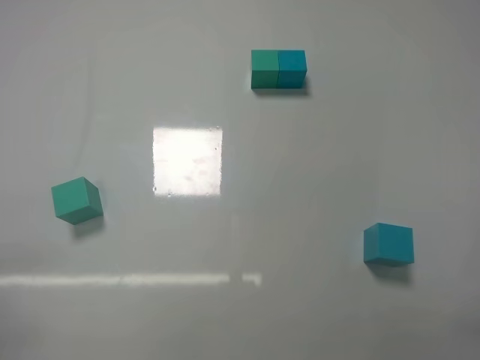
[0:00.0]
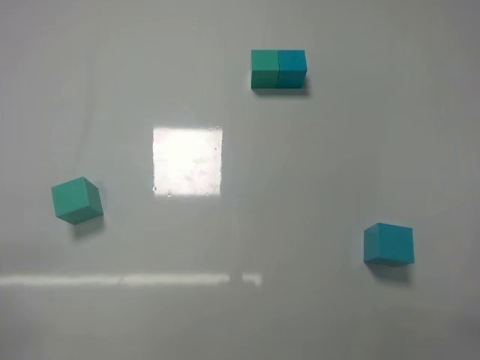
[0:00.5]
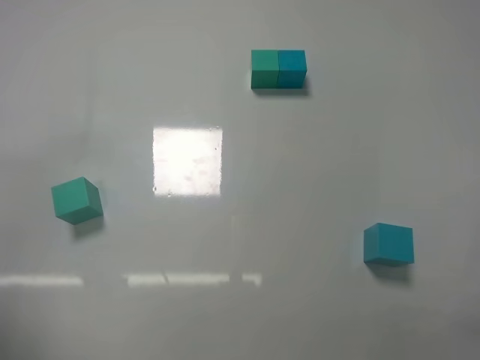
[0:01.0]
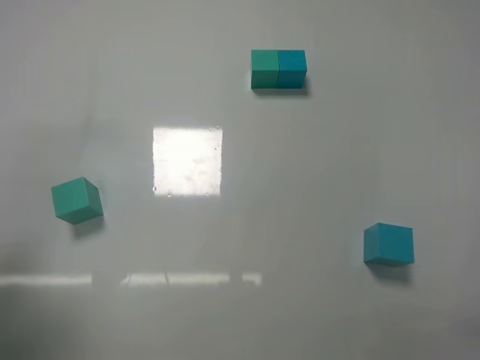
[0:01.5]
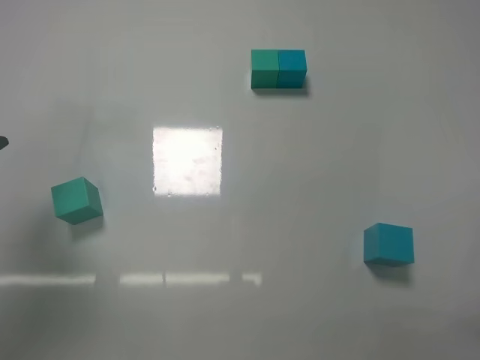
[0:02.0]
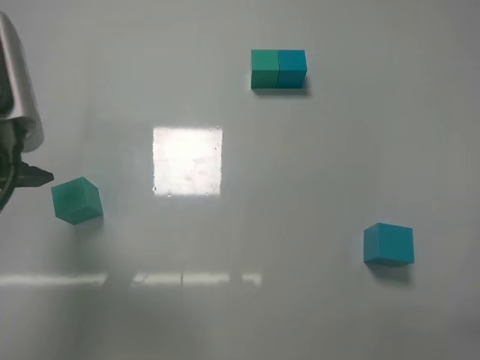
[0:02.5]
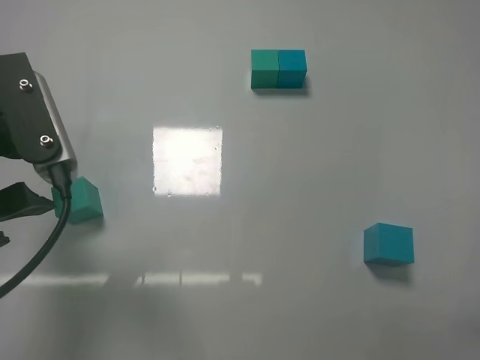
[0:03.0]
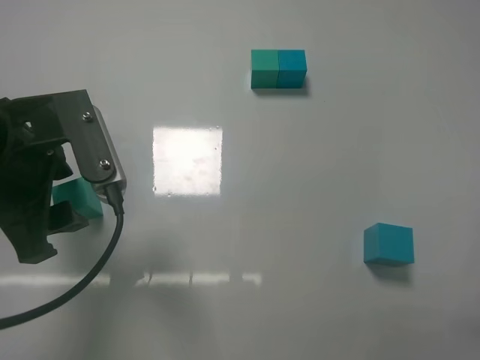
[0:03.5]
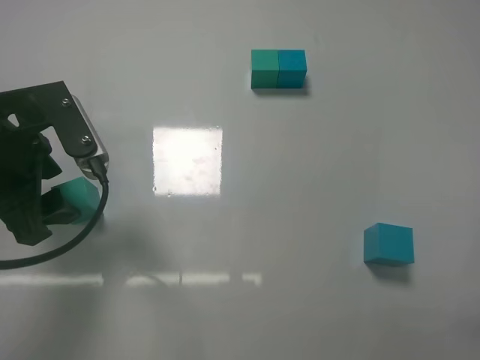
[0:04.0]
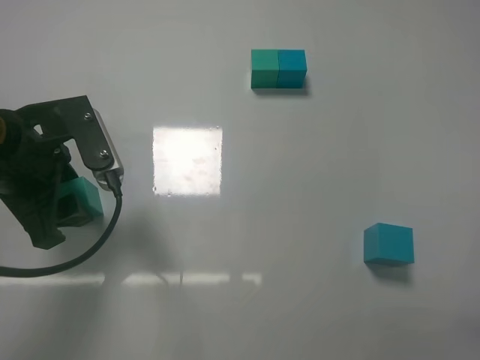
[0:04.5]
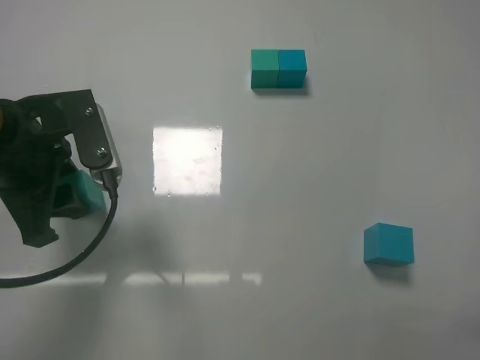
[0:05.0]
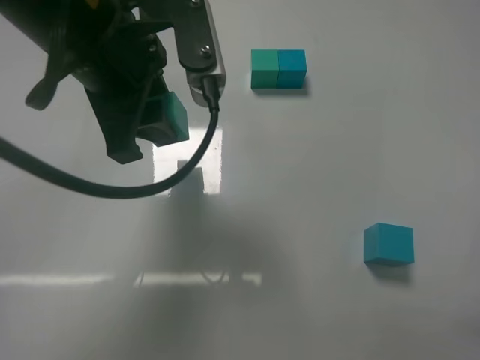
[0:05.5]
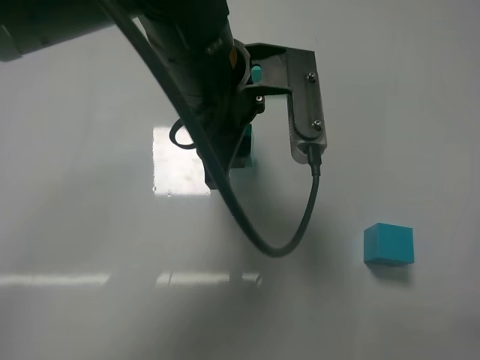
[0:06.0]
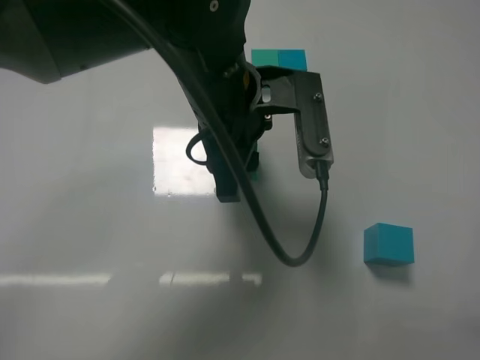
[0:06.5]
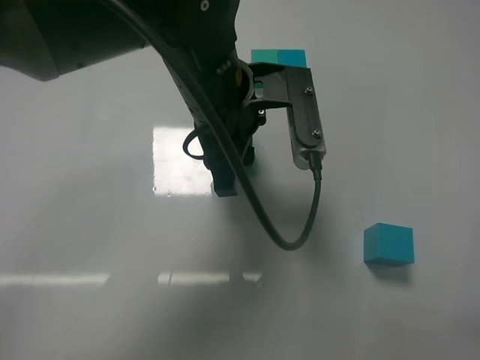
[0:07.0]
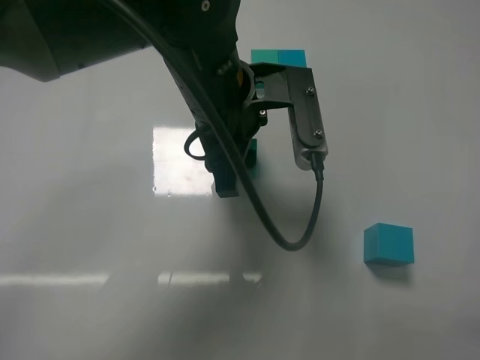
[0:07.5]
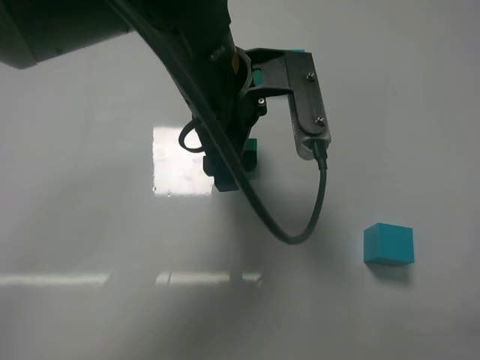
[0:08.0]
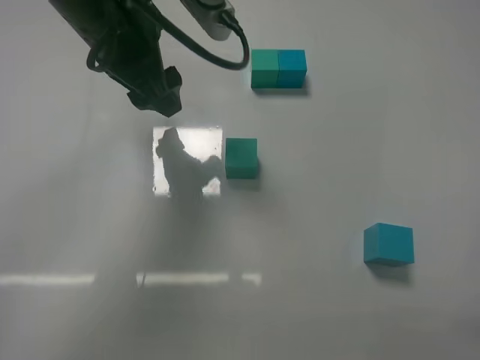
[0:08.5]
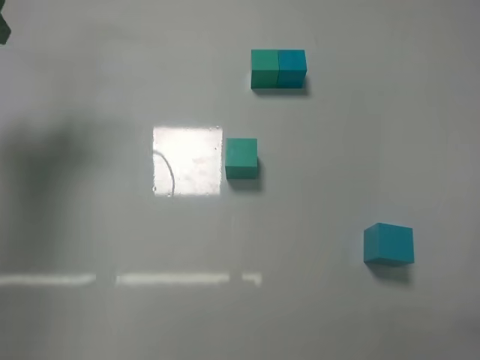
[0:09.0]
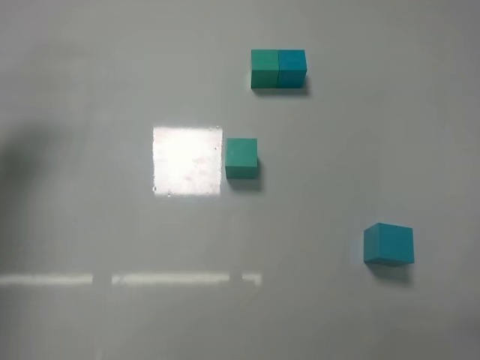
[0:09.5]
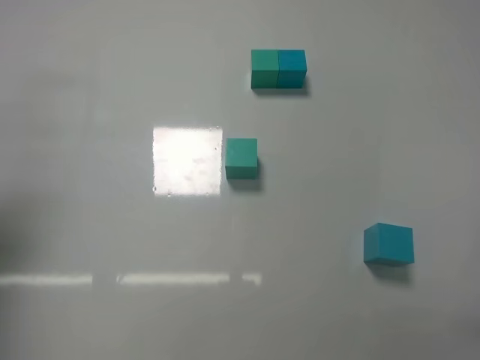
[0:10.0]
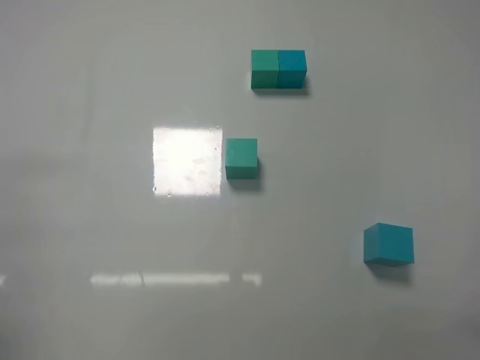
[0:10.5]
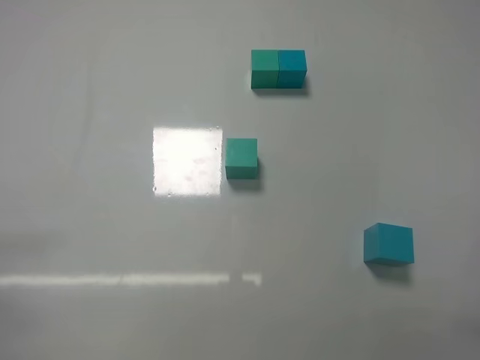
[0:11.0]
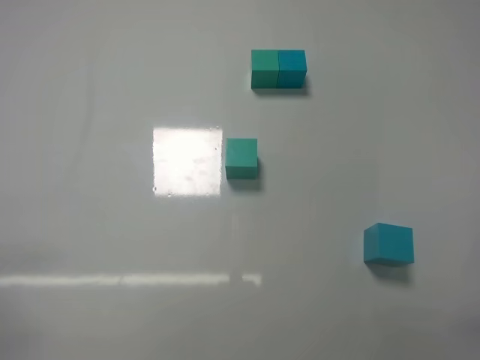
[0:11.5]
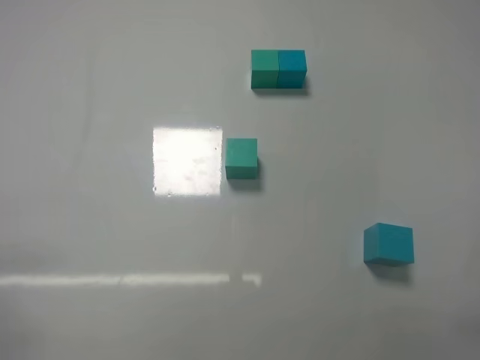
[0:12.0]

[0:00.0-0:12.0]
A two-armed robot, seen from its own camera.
Task of the whole recording: According to the building block template in front, assemble the scattered blocks together.
Step, 0:00.0 to 0:04.5: Grasp the green block with left gripper.
Step, 0:05.0 to 0:08.0: Adjust the position of the cube with the left gripper.
0:00.0 to 0:02.0: The left gripper shifts roughly 25 cm forward and upward, and opens up.
0:02.0 to 0:04.0: The left gripper heads downward, to the right and forward, covering about 10 cm.
0:04.0 to 0:06.0: The left gripper moves to the right, roughly 20 cm, and closes its fingers.
0:06.0 to 0:08.0: The left gripper opens up.
0:08.0 to 0:10.0: The left gripper is displaced to the left by approximately 35 cm.
0:10.0 to 0:12.0: The left gripper is displaced backward and downward by about 25 cm.

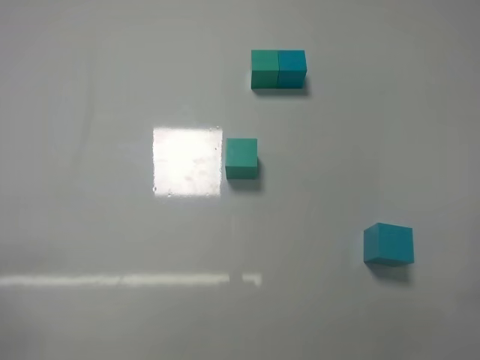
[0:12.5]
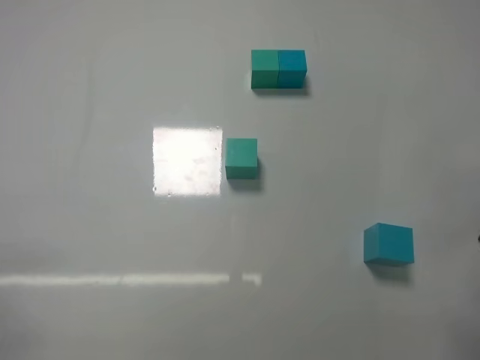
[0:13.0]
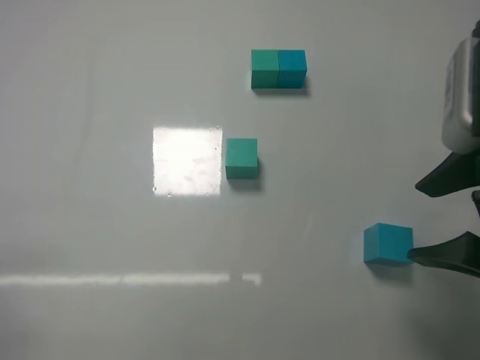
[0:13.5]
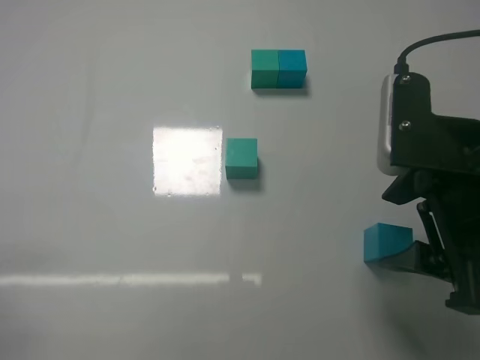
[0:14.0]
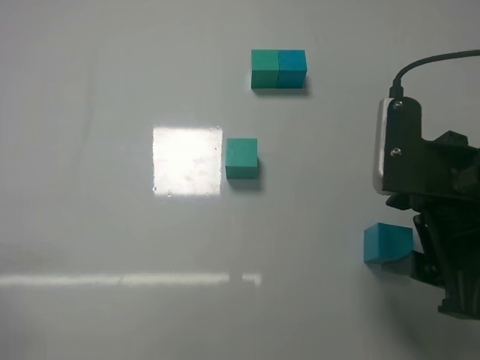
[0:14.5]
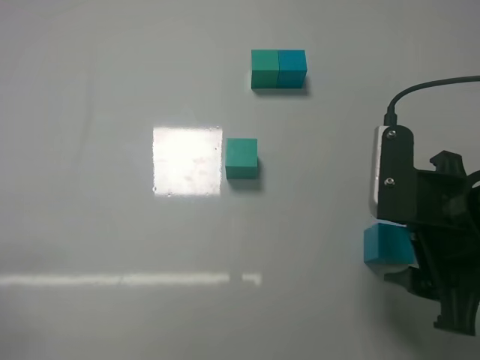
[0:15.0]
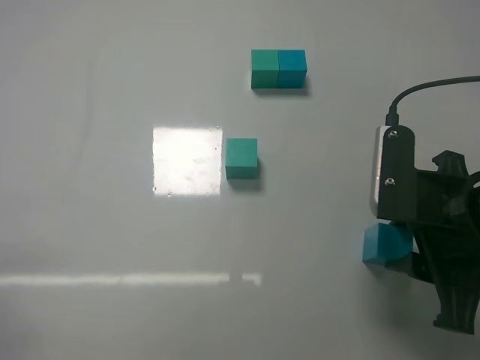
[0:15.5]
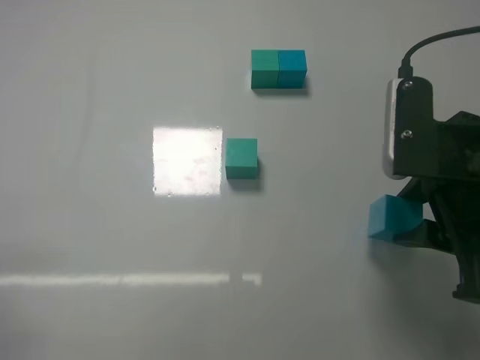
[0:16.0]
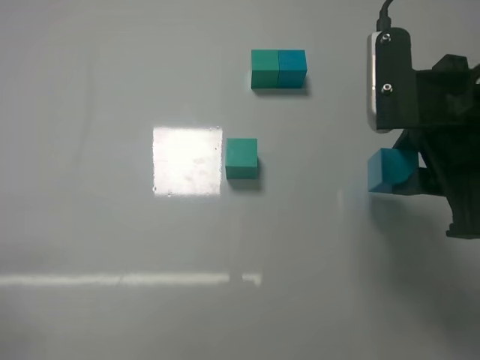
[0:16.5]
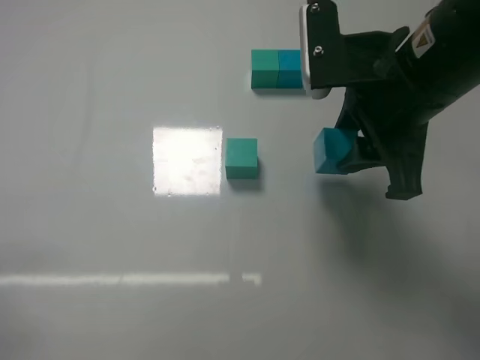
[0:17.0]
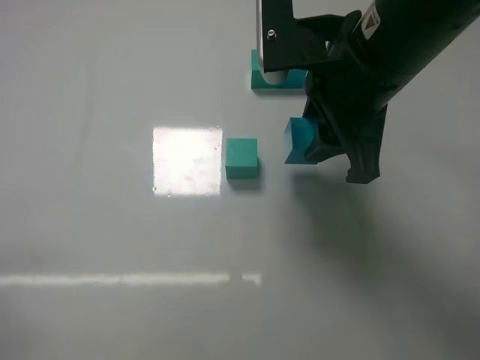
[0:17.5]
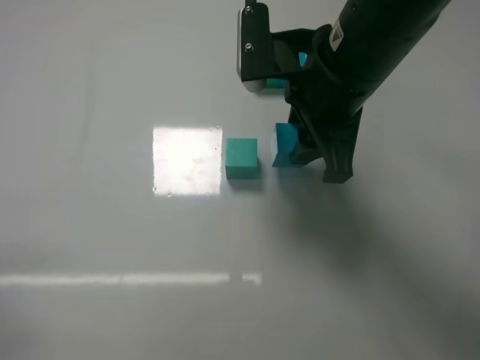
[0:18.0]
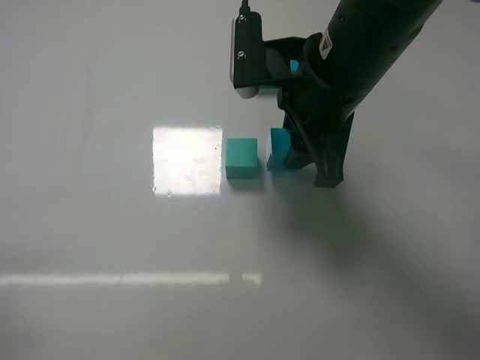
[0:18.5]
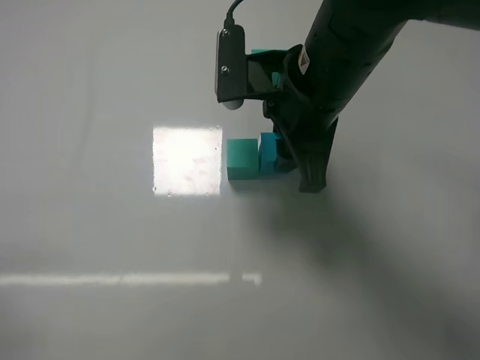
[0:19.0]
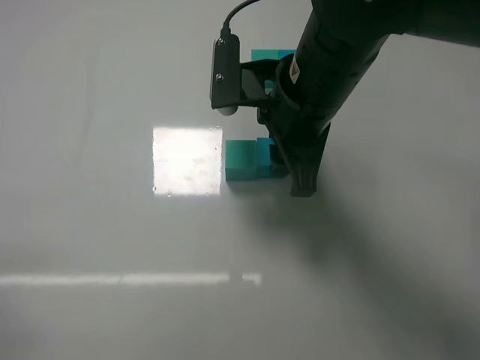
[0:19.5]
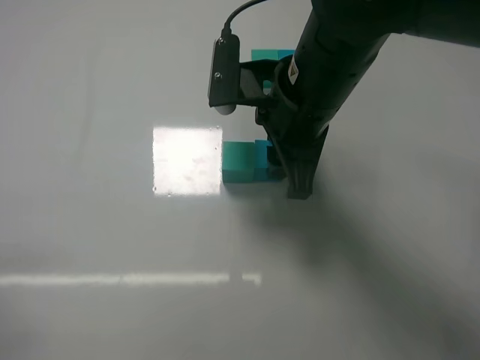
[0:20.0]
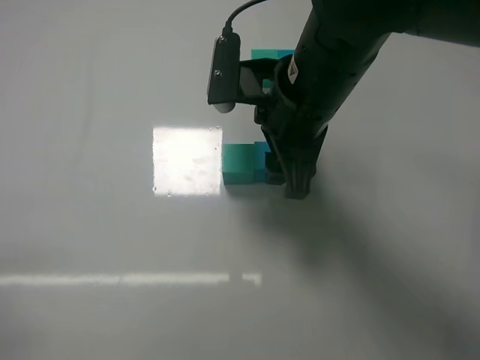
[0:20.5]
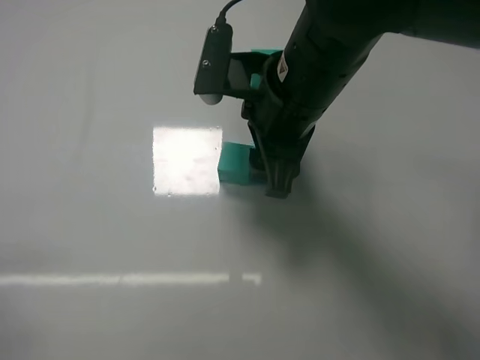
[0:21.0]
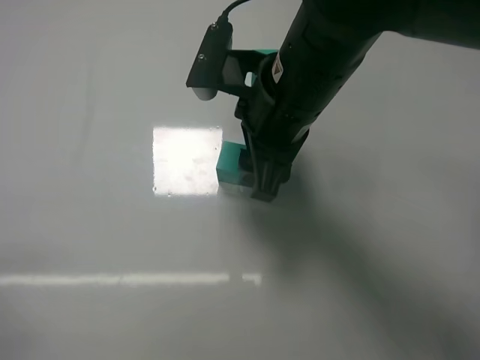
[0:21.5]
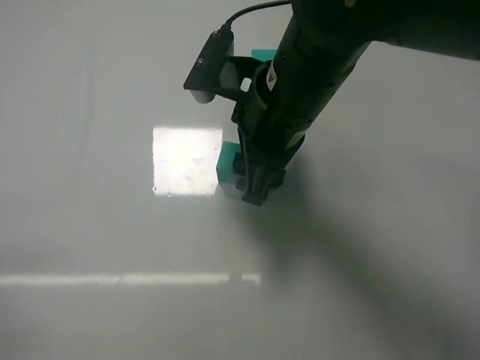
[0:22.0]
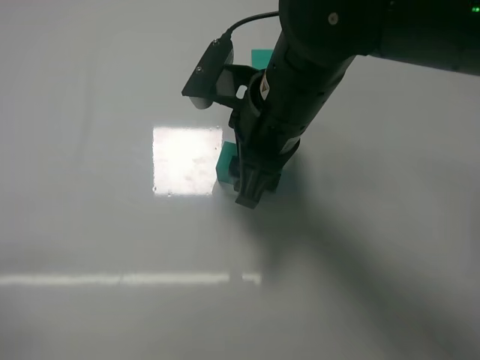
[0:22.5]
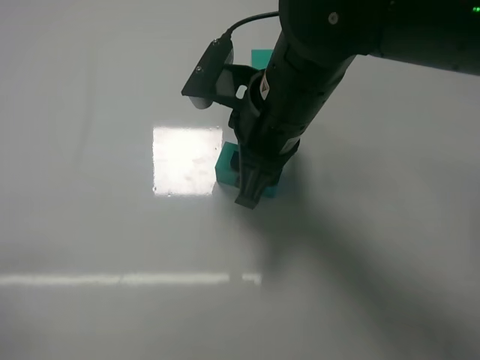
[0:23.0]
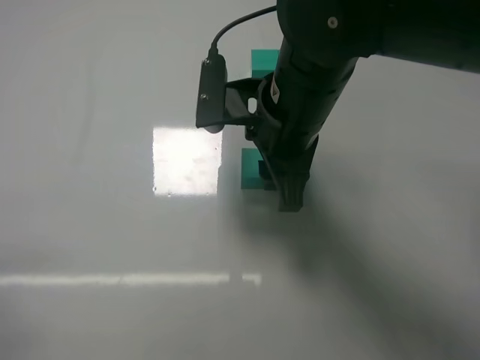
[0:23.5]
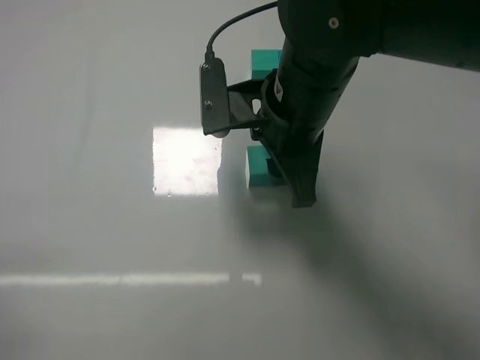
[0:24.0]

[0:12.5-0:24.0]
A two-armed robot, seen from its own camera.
Task of the whole recording: According to the building block template in front, assemble the scattered blocks together.
Step, 0:12.5 to 0:15.5: Grasp the blue block with right gripper.
Step, 0:16.0 to 0:20.5: Put the blue cube on the right of the green cube with the right gripper.
0:12.5 to 0:14.5: The right gripper shifts roughly 20 cm forward and to the left, and opens up.
0:14.5 to 0:16.5: The right gripper shifts roughly 5 cm upward, and closes.
0:16.5 to 0:18.5: The right gripper travels to the left and forward by about 10 cm.
0:18.5 to 0:20.0: The grippers stay close to where they were, moving slightly.
0:20.0 to 0:22.0: The right gripper opens up.
0:22.0 to 0:24.0: The right gripper closes its fingers.

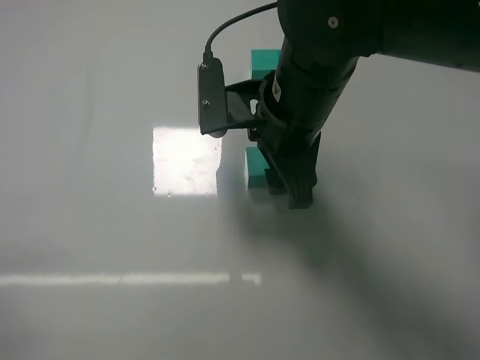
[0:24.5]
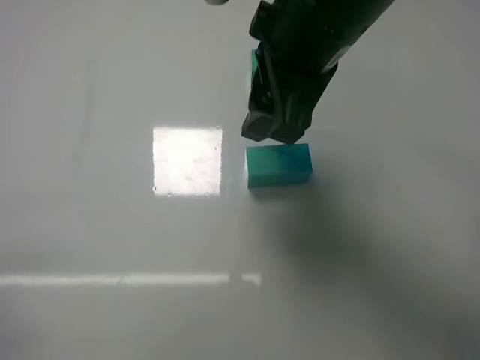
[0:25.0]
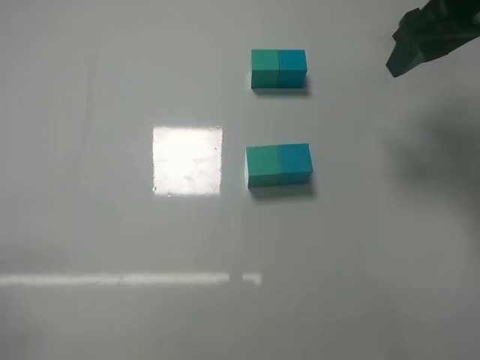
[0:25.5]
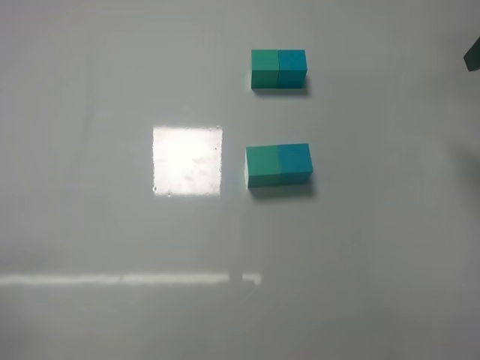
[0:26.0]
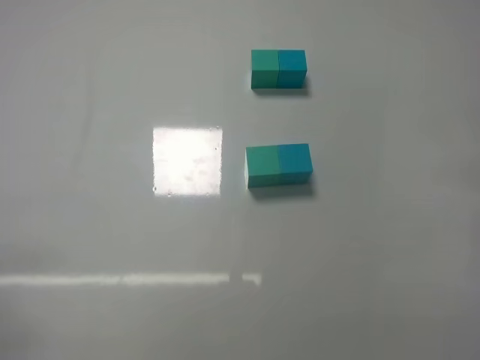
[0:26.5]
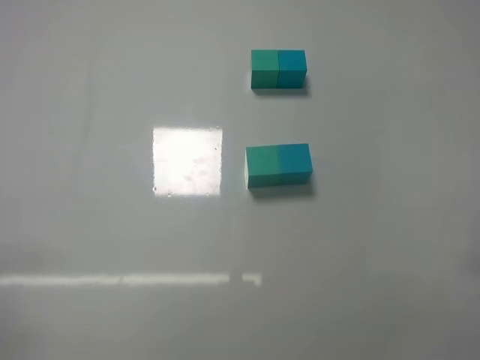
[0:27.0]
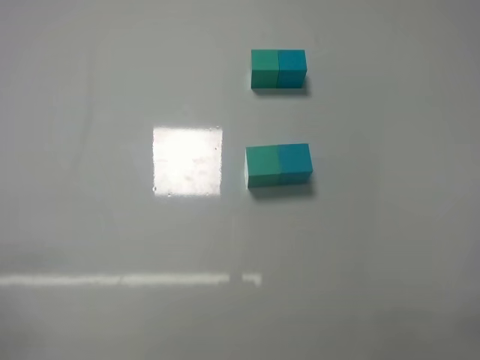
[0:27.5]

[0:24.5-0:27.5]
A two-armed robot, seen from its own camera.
Task of the whole recording: According to the building block template in front, assemble the scattered blocks together.
0:24.5 to 0:26.0: The right gripper travels to the right and upward by about 30 cm.
